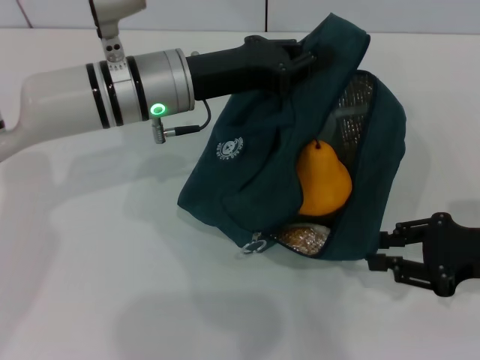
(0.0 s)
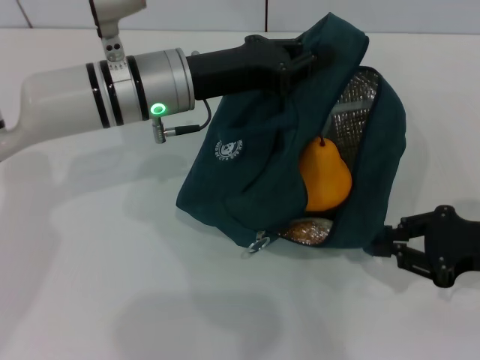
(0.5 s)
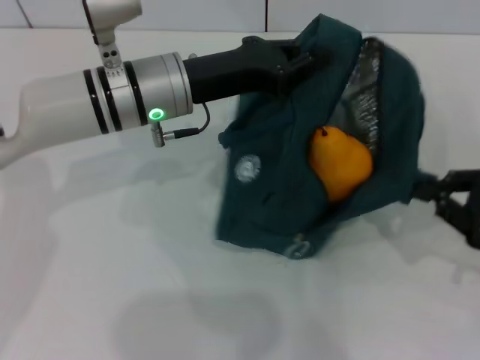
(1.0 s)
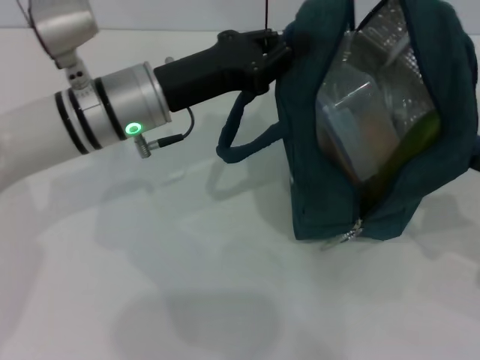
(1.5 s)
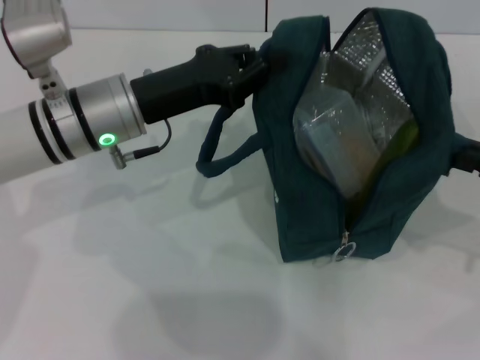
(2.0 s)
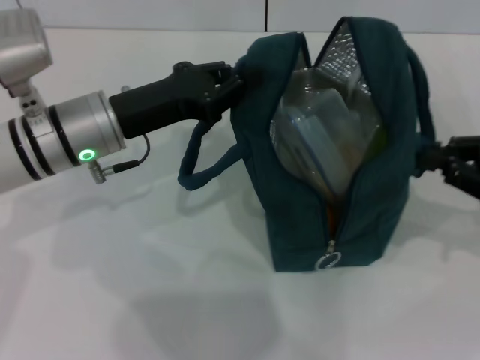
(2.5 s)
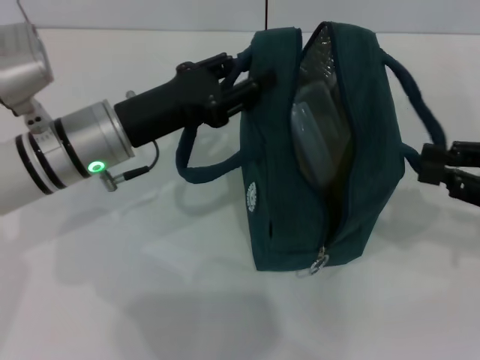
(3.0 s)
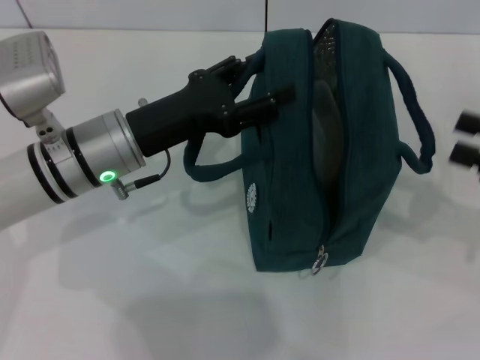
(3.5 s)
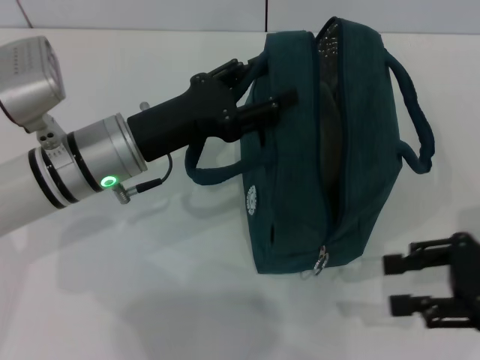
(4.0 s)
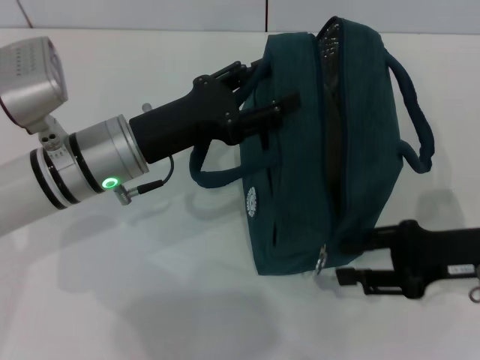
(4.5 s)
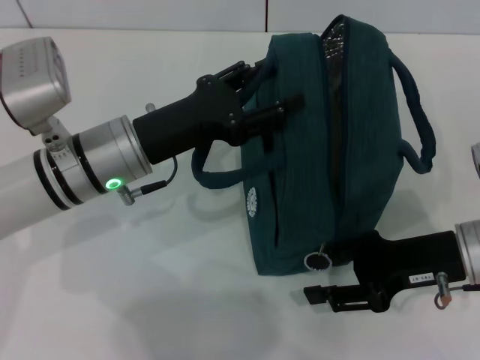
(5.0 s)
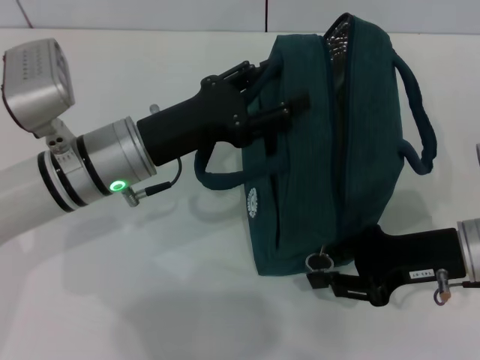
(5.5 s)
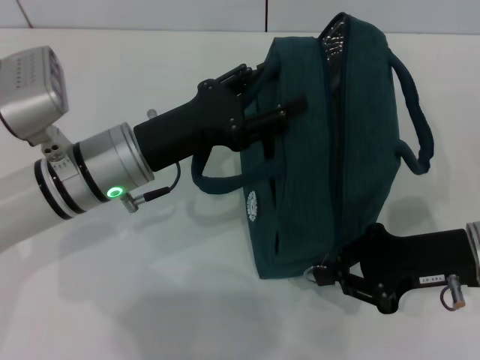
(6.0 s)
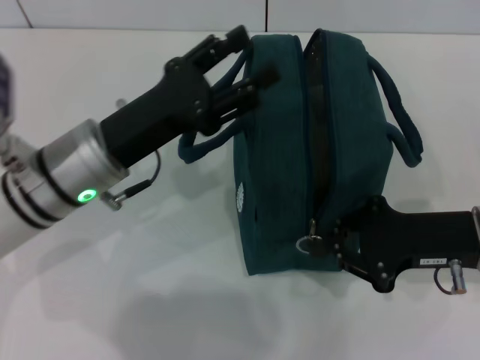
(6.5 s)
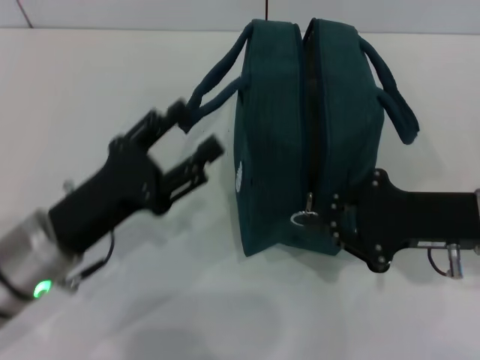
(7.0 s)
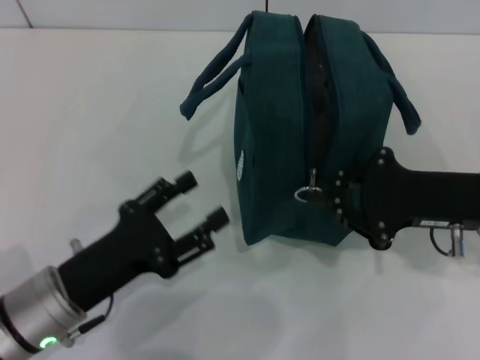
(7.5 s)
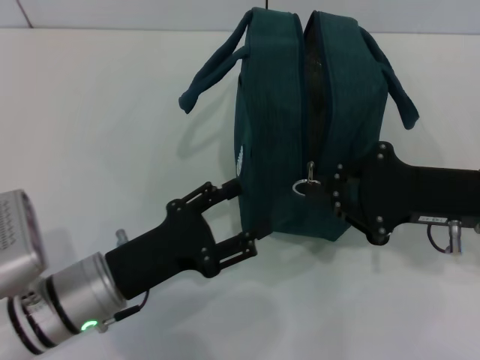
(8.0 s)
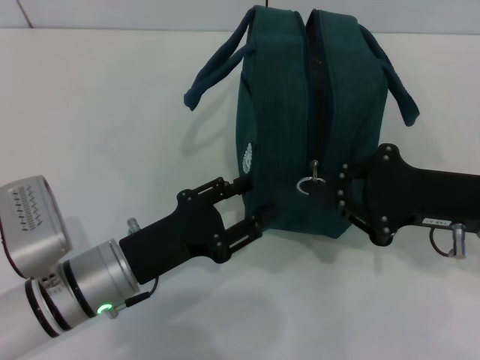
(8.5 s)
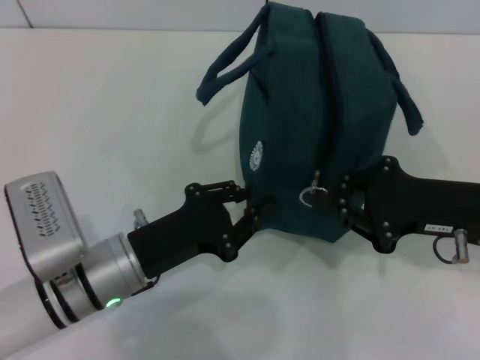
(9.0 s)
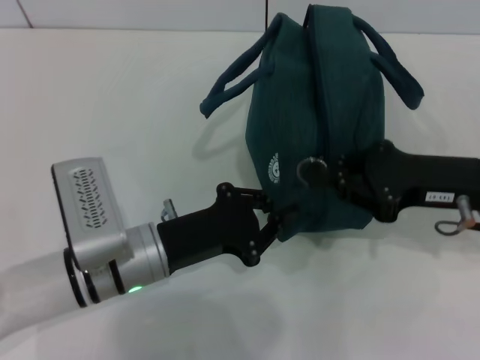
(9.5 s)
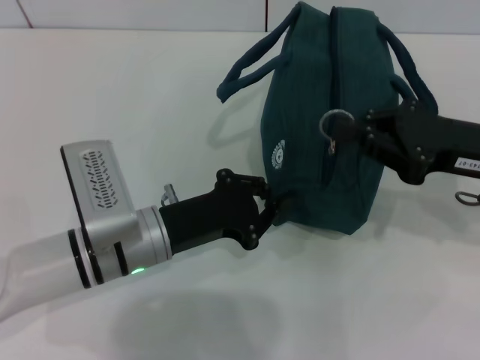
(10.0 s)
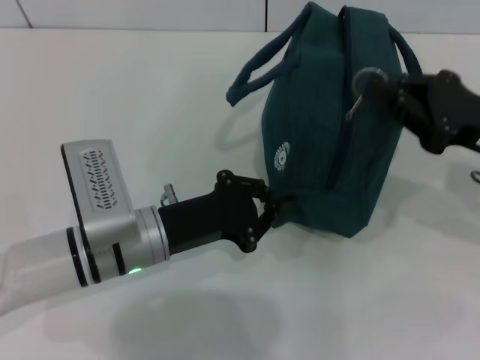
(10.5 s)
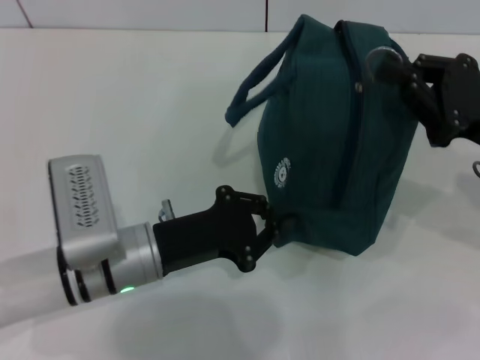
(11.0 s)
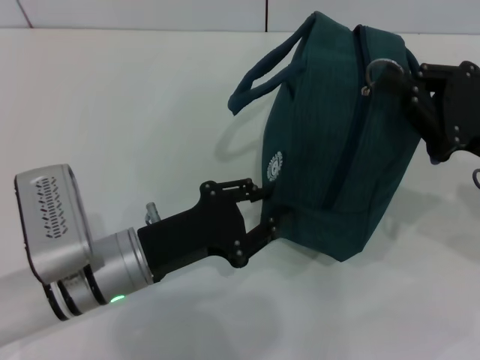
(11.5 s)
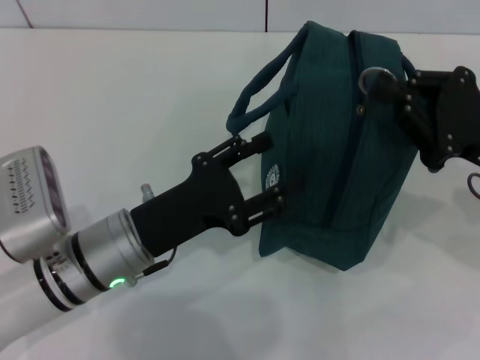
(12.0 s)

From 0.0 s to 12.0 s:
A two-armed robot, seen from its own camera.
Step, from 0.0 s to 3.0 s: Hold the lunch bag with your right hand.
Step, from 3.5 s to 6.5 s: Hold the lunch bag with your left hand.
From 0.0 s to 2.0 s: The left gripper moves approximately 5 cm. Meanwhile the right gripper heads to the right, covering about 5 cm, and closes.
From 2.0 s to 4.0 s: The left gripper opens. Meanwhile the right gripper opens up.
From 4.0 s to 6.0 s: The right gripper heads to the left, covering approximately 5 cm, and closes its fingers.
From 6.0 s to 8.0 s: The left gripper travels backward and downward by about 10 cm.
From 8.0 s to 10.0 s: The left gripper goes about 5 cm forward, and closes.
From 10.0 s to 12.0 s: The left gripper opens.

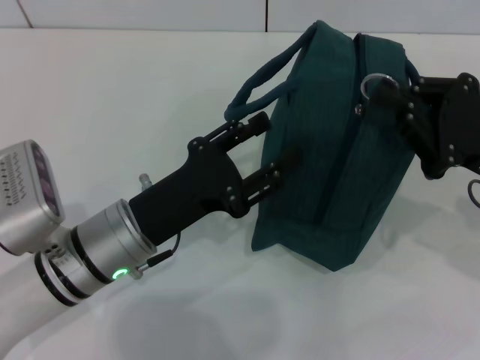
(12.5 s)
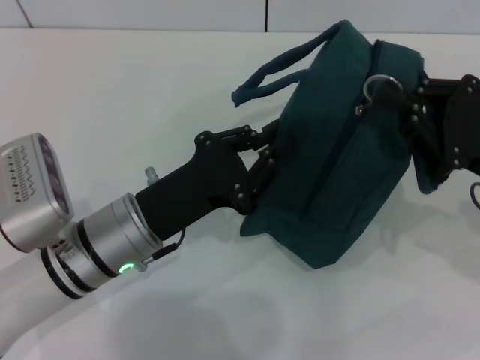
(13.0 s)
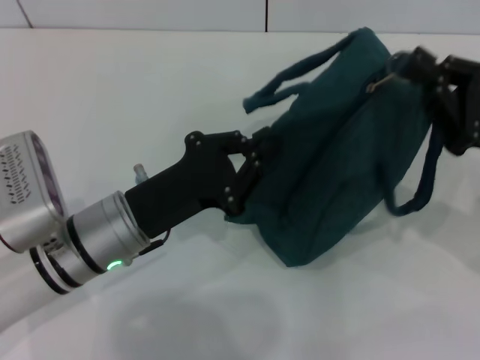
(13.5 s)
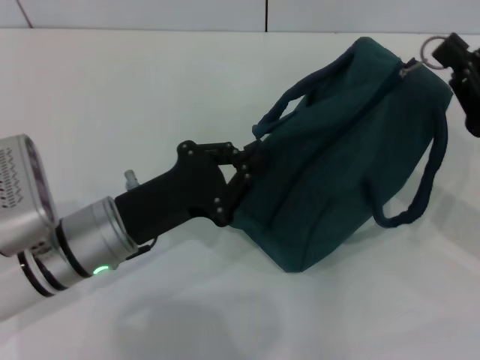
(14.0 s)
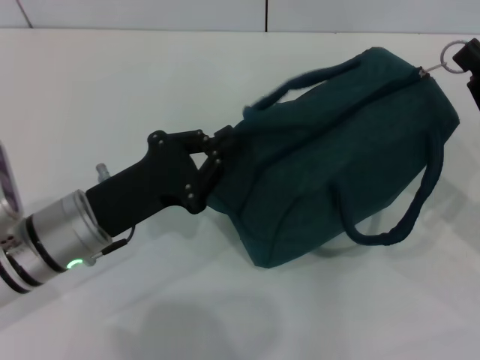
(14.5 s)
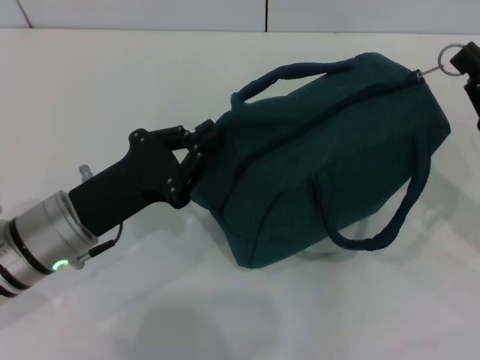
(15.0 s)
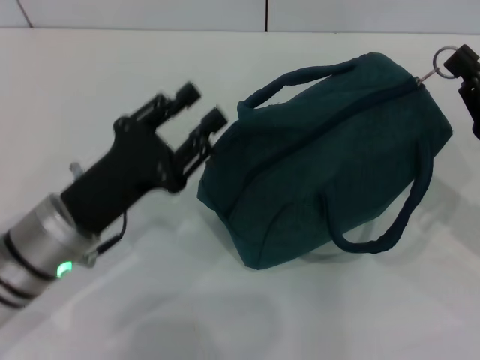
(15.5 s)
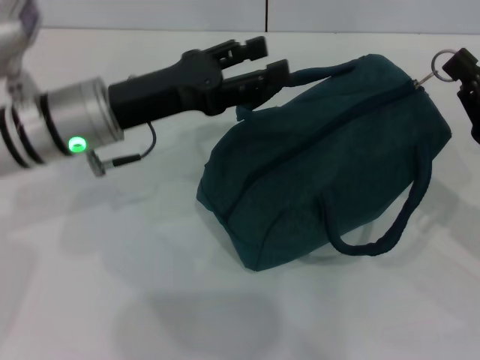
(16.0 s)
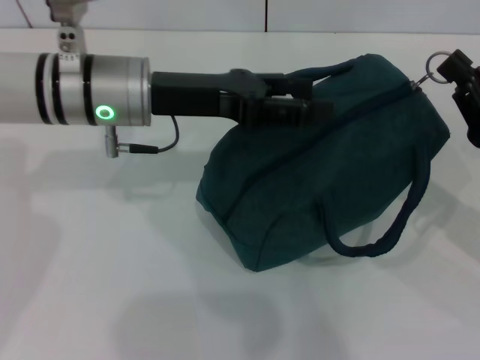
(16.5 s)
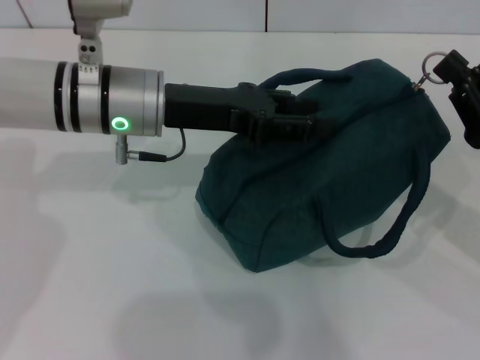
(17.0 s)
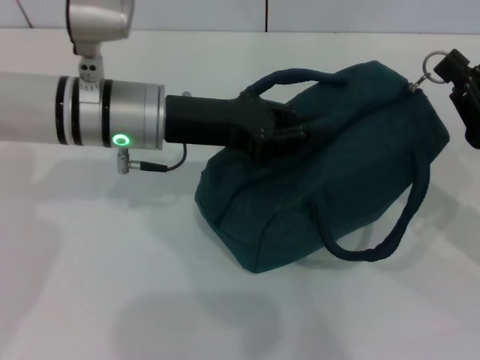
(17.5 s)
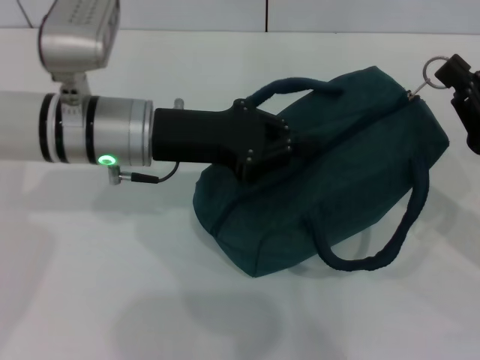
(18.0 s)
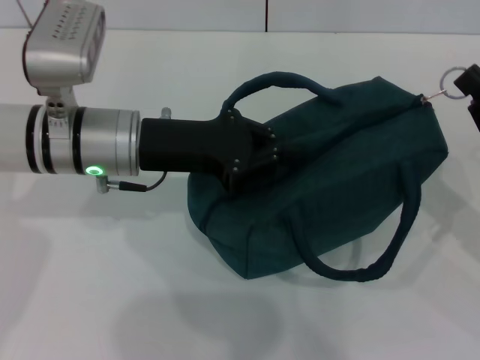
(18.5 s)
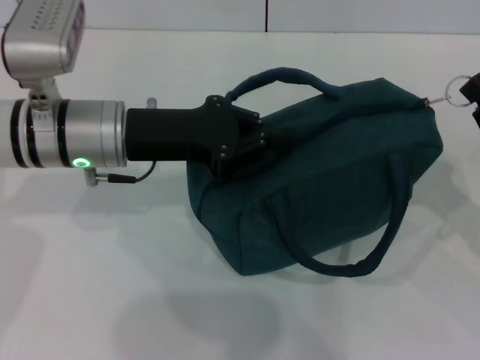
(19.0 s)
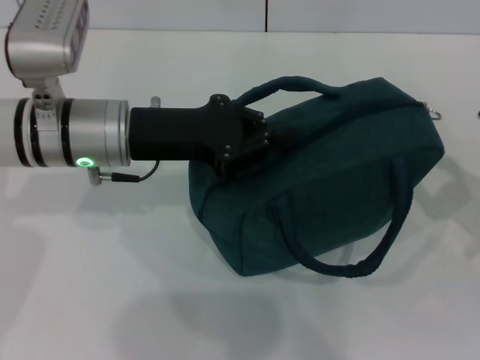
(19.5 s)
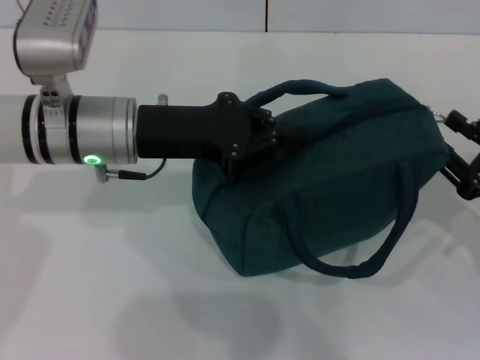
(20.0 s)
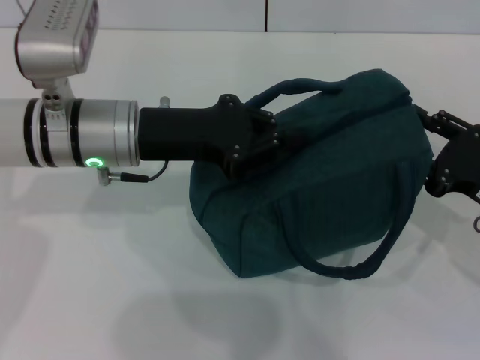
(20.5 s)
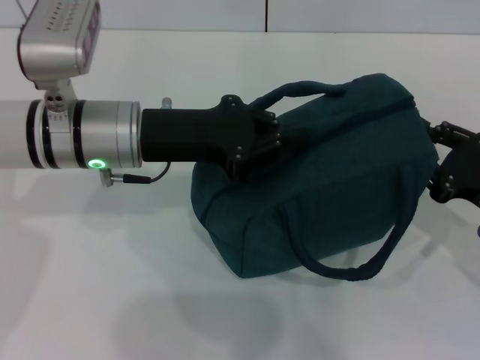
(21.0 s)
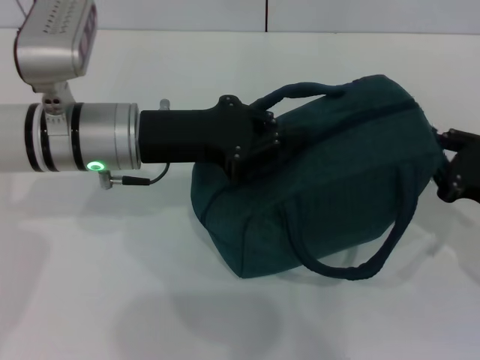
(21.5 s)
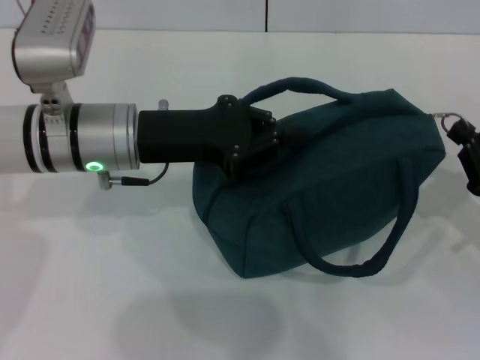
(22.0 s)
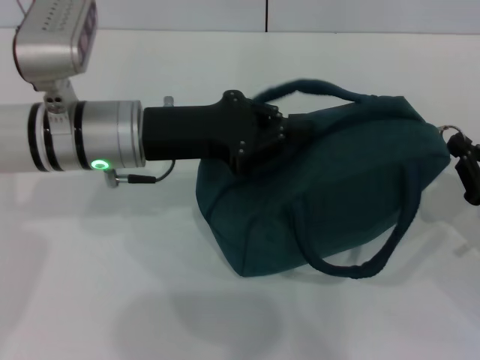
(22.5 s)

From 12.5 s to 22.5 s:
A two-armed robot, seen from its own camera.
From 12.5 s to 14.5 s: The left gripper closes.
From 14.5 s to 16.5 s: The left gripper travels forward and upward by approximately 15 cm, and opens its fingers.
From 16.5 s to 18.5 s: The left gripper closes up.
From 18.5 s to 20.5 s: The right gripper opens its fingers.
From 20.5 s to 22.5 s: The right gripper closes its fingers.

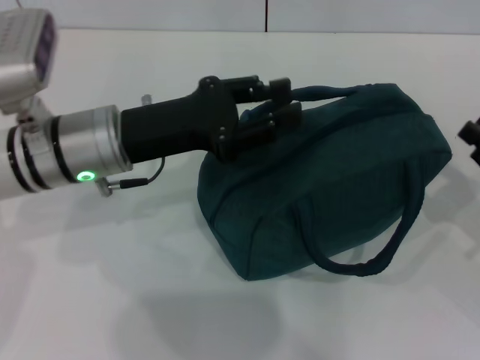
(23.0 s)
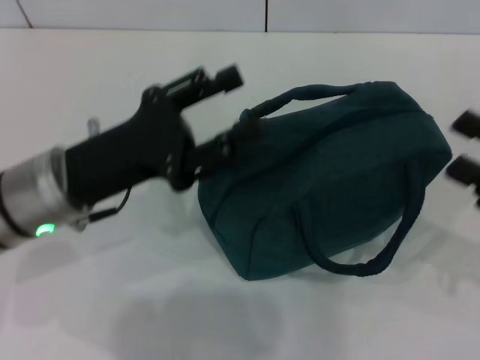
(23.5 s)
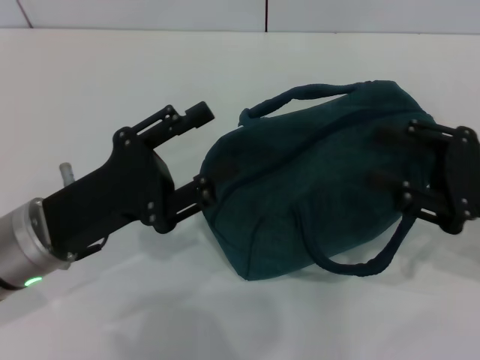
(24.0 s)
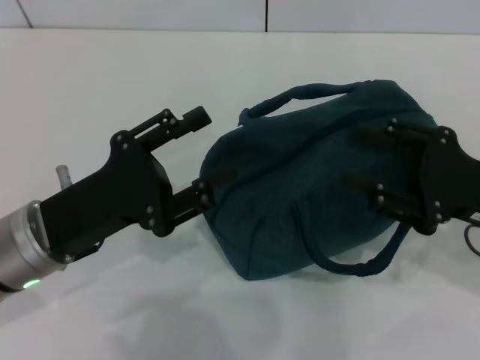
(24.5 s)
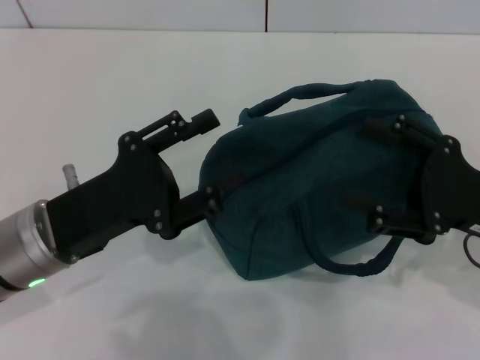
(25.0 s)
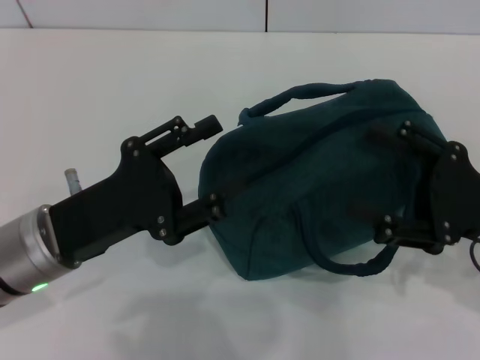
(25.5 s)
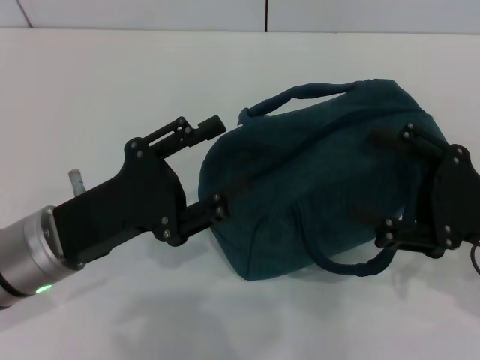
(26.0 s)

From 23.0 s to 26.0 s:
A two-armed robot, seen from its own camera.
From 23.0 s to 24.5 s: The right gripper moves to the left and upward, approximately 10 cm, and opens. The left gripper is displaced backward by approximately 10 cm, and opens up.
From 24.5 s to 26.0 s: The right gripper opens up.
